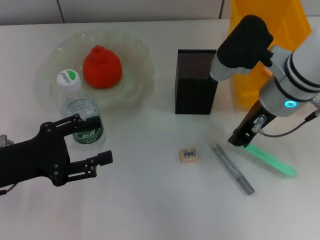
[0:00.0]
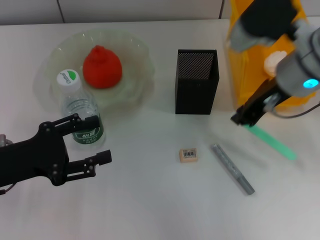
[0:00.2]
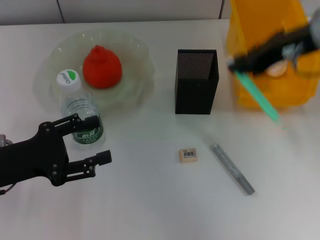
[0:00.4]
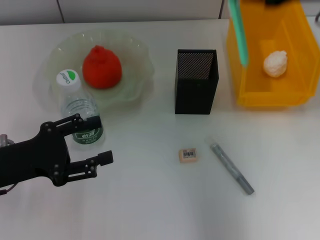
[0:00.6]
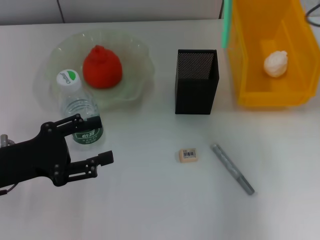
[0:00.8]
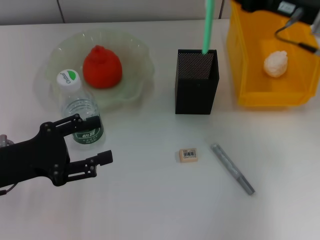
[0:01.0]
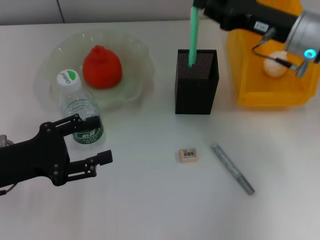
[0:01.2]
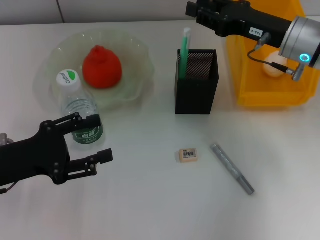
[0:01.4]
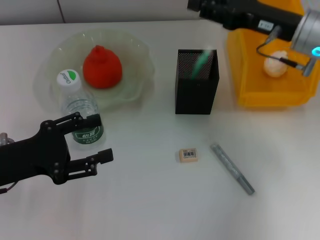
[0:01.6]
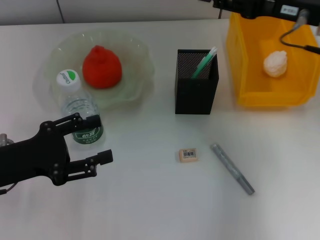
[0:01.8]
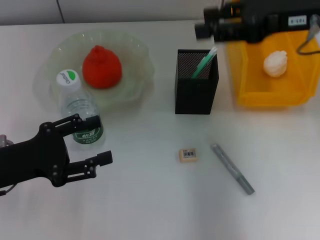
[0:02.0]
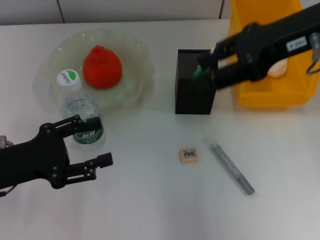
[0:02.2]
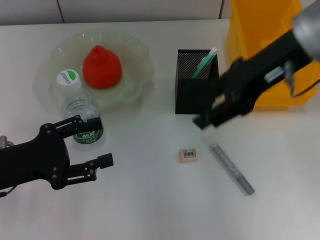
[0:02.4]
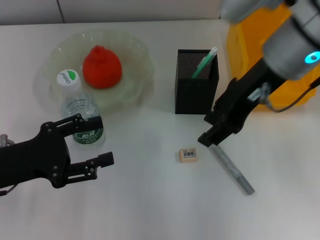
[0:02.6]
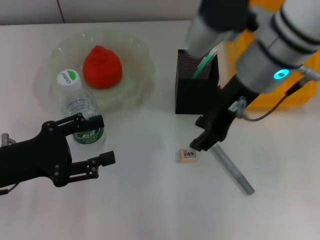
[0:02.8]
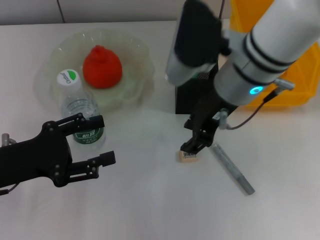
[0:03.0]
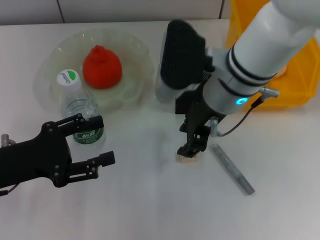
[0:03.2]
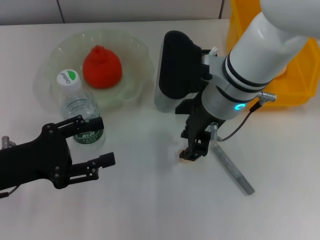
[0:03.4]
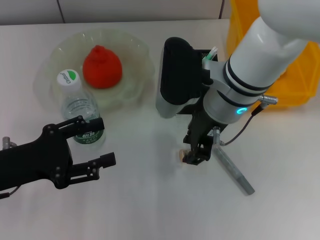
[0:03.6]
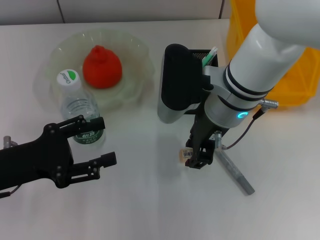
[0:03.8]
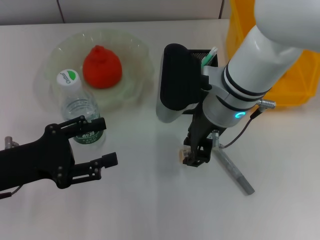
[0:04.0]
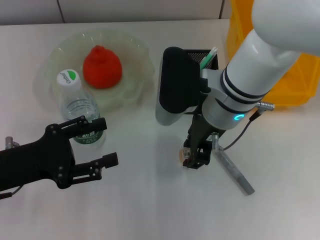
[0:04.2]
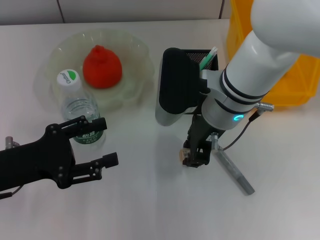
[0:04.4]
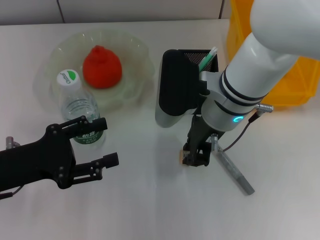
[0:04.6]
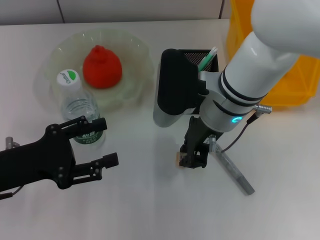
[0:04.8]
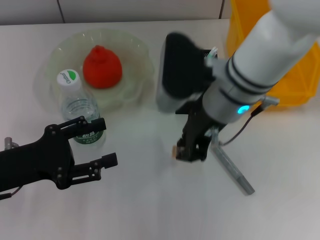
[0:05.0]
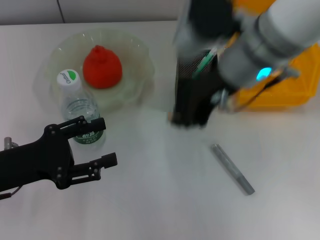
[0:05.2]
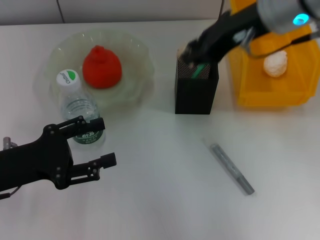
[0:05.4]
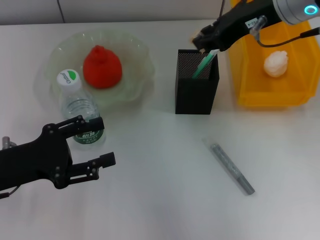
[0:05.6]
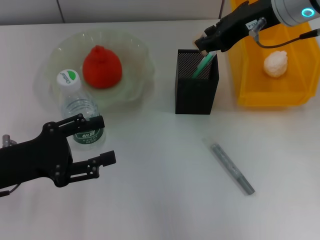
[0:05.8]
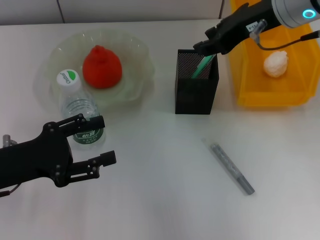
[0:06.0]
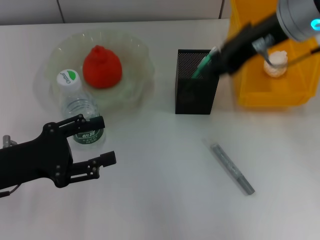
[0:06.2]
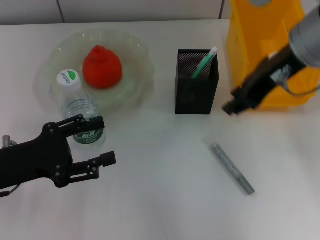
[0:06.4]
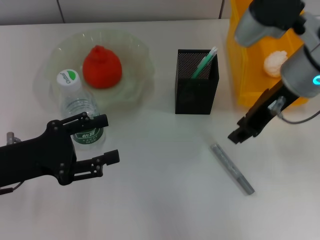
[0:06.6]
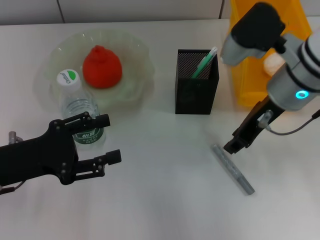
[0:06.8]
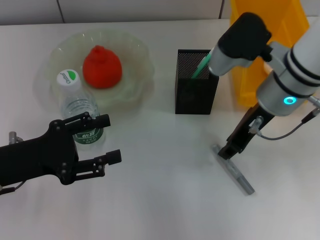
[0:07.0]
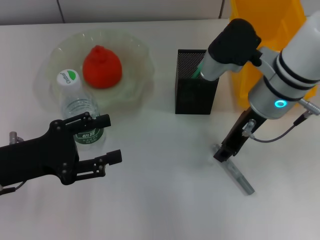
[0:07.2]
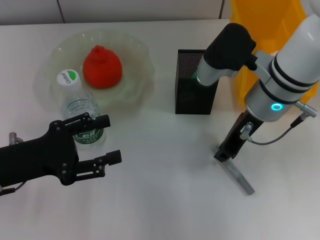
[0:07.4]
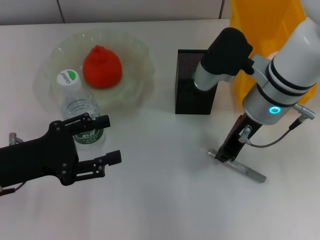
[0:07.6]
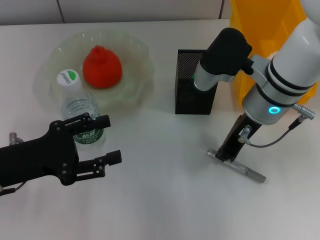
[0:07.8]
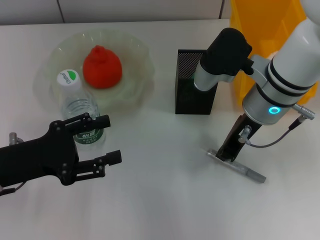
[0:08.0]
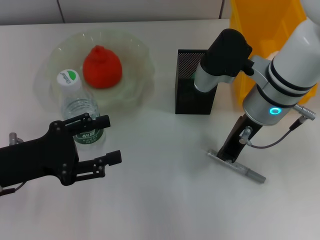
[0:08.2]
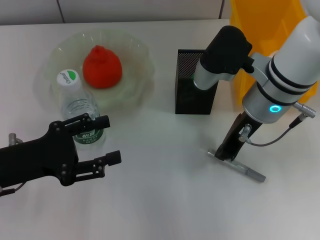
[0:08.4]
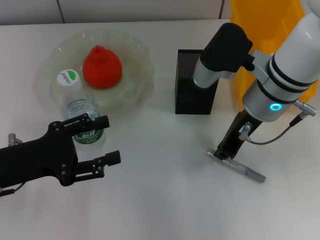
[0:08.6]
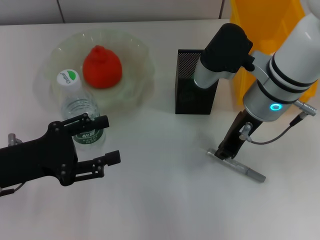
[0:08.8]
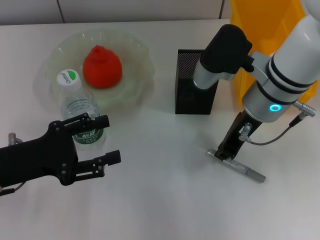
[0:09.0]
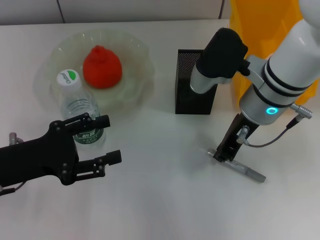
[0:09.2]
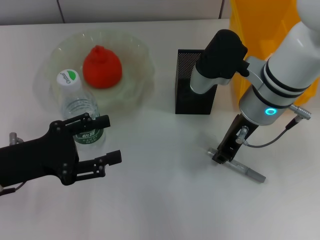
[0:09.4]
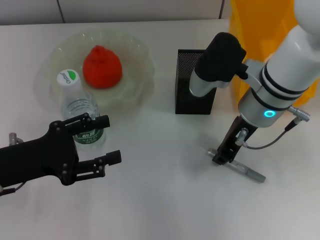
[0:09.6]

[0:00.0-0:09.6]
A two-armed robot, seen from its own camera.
Step, 0:00.0 to 0:01.6: Place the blue utility knife into the pen holder with the right hand.
Step, 0:01.8 to 0:04.6: Grab the eraser with the right hand.
Step, 0:04.8 to 0:06.0: Put the eraser into the pen holder with the right hand.
0:00.0 to 0:01.6: The right gripper goes approximately 5 cm to the right, and reaches about 10 cm upward, then returns.
0:01.6 to 0:03.2: The right gripper heads to the left, covering about 15 cm.
0:03.2 to 0:04.8: The grippers move only a little.
0:04.8 to 0:06.4: The right gripper shifts roughly 15 cm to the right and upward.
0:06.4 to 0:08.0: The right gripper travels downward by approximately 10 cm, and closes up.
0:08.0 to 0:09.6: Both grippers stay about where they are.

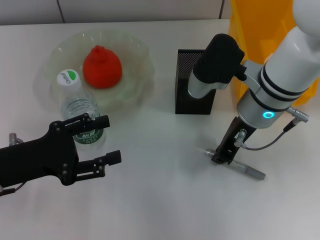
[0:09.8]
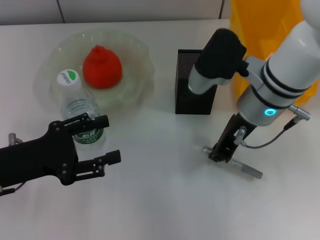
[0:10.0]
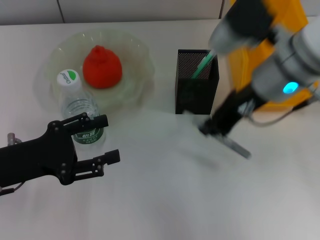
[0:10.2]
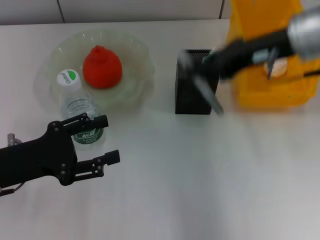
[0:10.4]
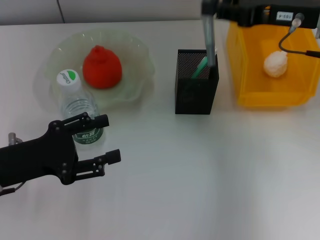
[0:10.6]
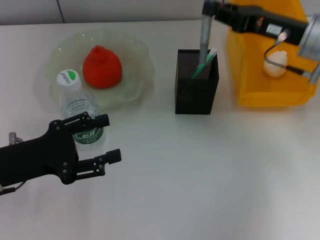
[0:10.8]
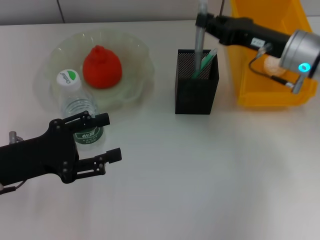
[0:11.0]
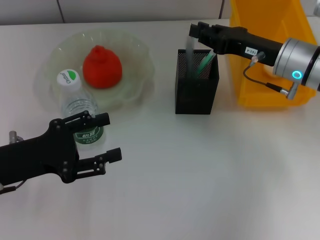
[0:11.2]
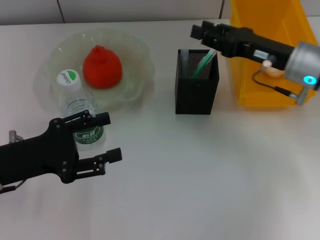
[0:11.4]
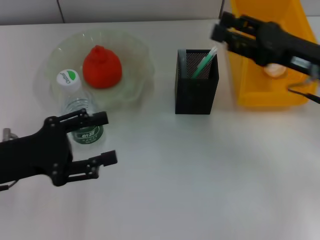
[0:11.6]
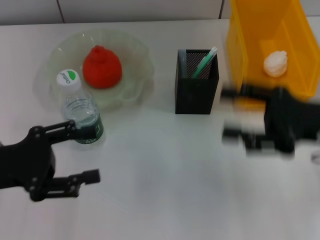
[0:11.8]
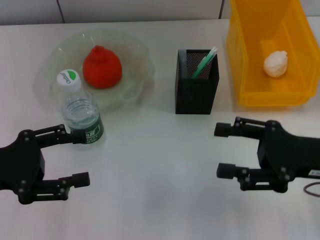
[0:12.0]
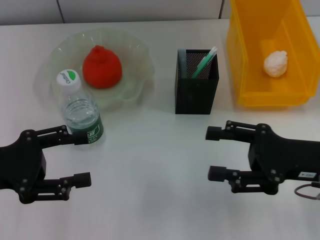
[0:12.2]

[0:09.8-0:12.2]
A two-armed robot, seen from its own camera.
Step, 0:10.0 to 0:11.4: Place the gray glue into the pen holder with the right hand.
0:09.8 to 0:11.0: The right gripper shifts approximately 10 cm to the right.
0:11.0 to 0:12.2: The right gripper shifts some 15 cm backward, and opens.

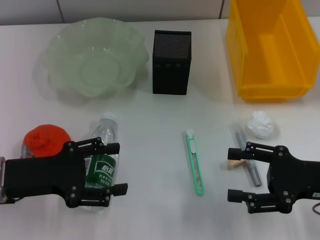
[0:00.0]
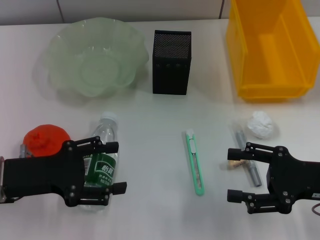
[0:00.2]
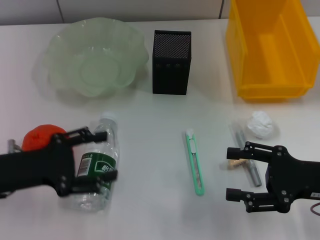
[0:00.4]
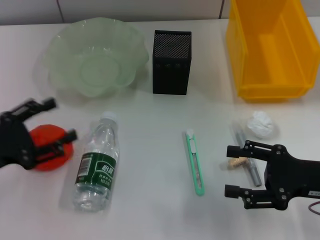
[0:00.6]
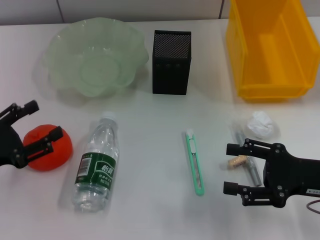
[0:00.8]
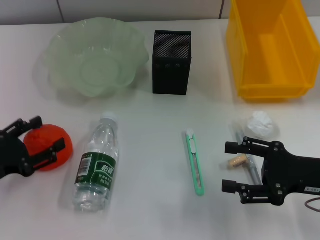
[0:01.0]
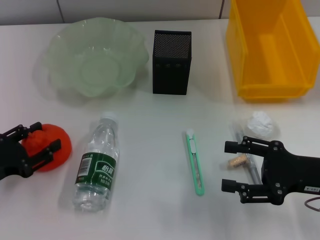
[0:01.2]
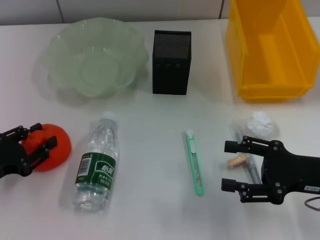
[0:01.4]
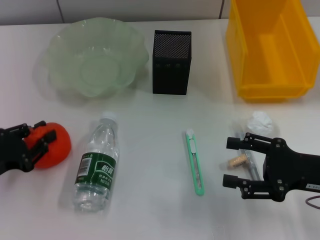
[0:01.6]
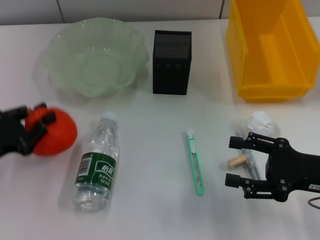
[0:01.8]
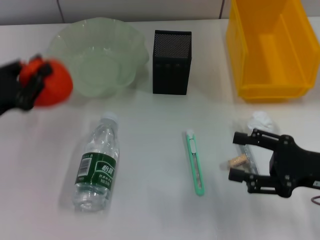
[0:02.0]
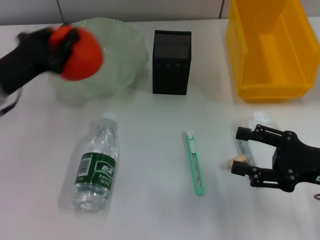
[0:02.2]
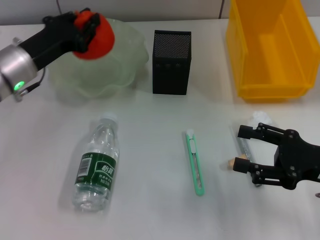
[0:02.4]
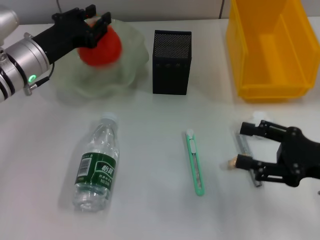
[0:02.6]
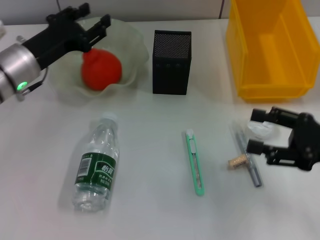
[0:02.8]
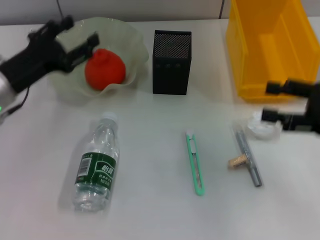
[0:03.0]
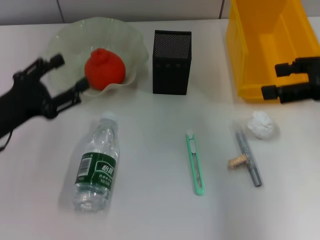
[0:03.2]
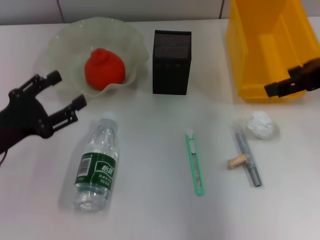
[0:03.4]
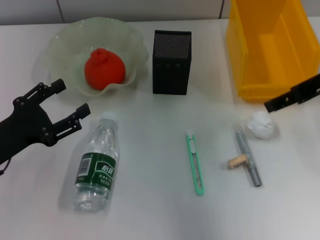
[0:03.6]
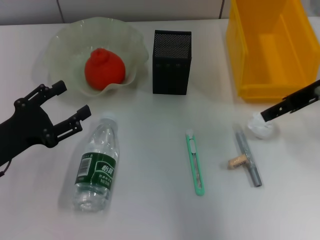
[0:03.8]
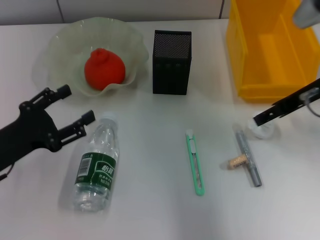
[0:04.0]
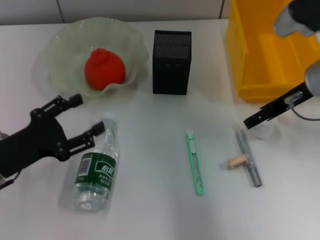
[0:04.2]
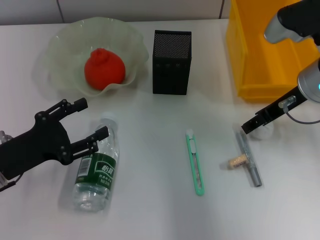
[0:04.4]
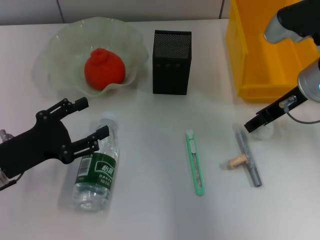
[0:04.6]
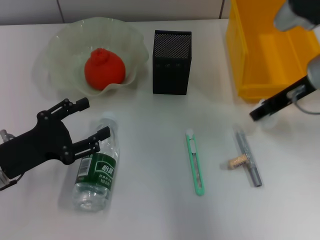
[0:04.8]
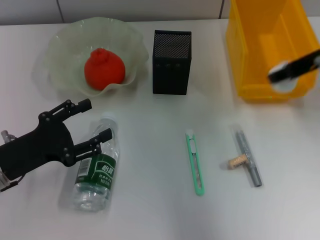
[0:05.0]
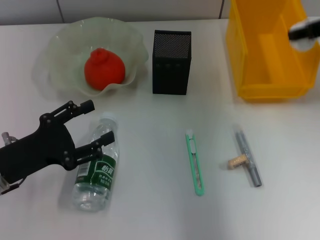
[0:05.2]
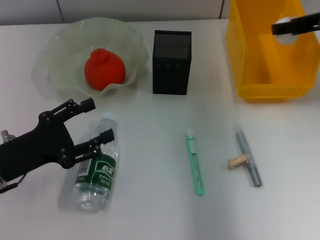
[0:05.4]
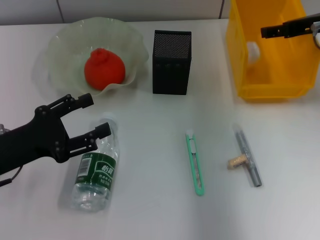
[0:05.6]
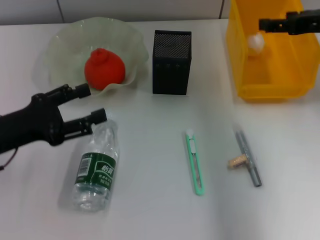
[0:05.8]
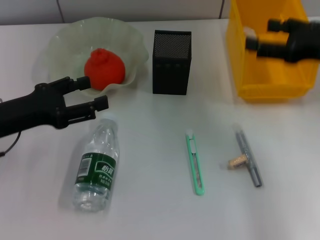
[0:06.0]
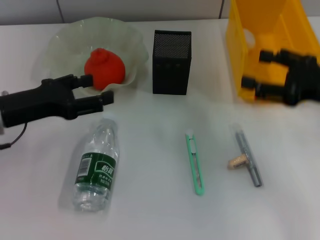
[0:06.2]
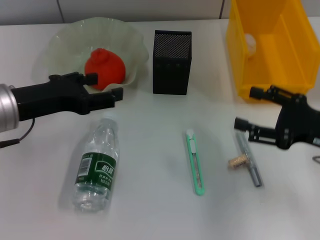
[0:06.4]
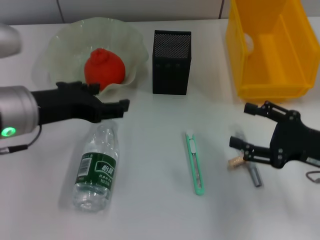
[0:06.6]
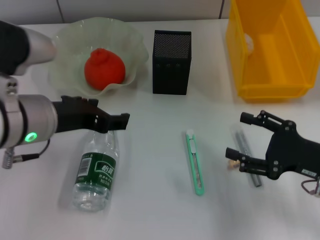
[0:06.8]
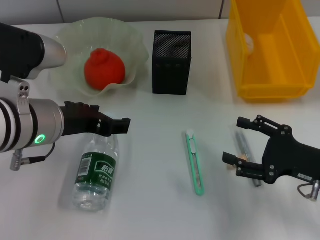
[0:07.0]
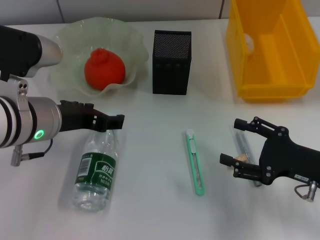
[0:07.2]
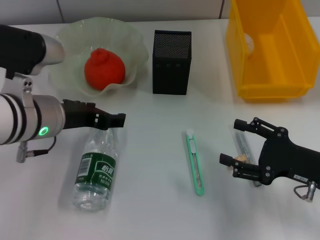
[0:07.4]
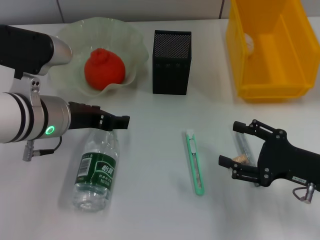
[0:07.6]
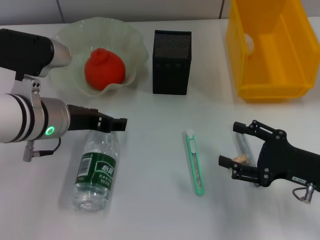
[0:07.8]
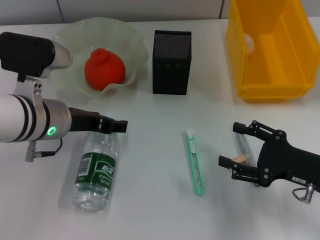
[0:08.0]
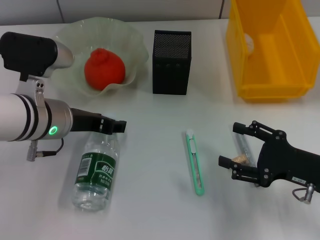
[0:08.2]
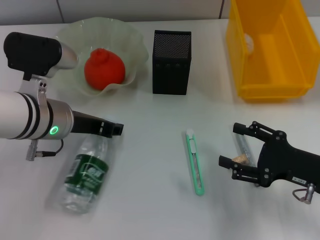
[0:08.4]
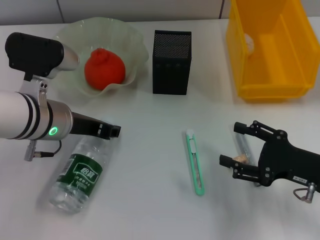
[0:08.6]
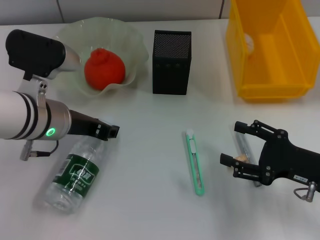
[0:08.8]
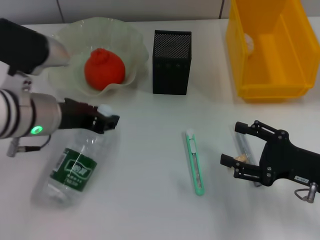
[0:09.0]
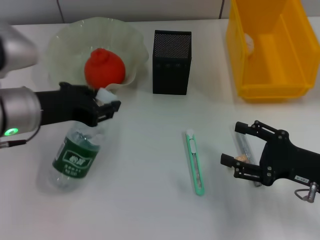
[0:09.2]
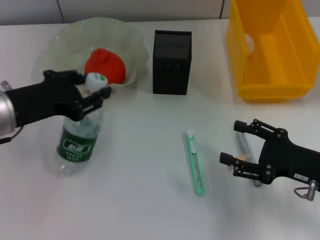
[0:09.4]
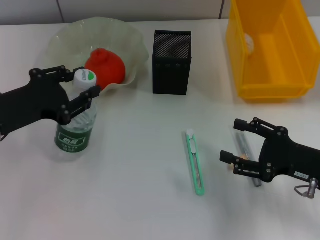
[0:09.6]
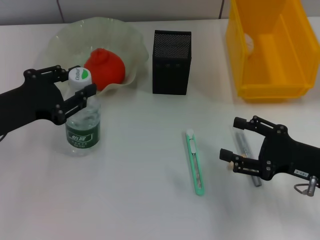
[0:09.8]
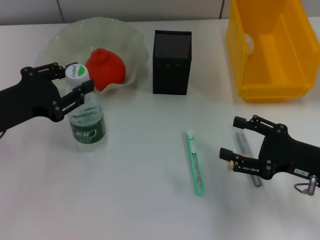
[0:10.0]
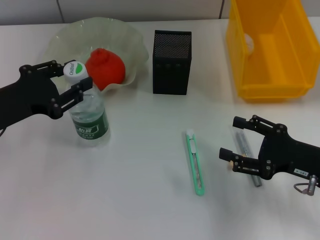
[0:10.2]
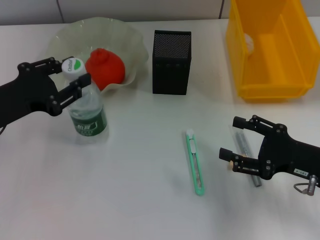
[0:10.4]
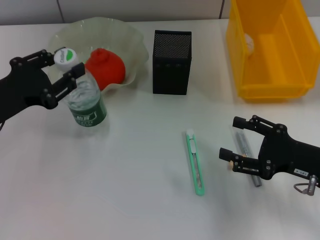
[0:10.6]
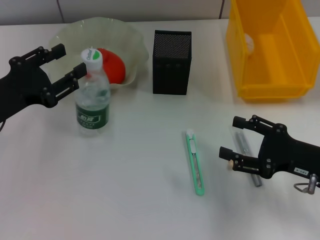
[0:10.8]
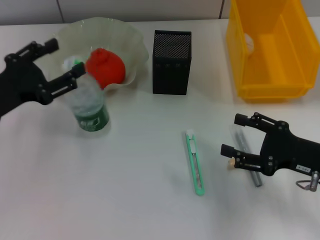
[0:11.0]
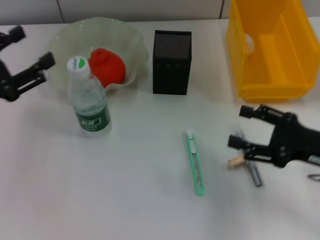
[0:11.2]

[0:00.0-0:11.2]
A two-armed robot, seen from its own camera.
Step, 0:00.0 to 0:01.4: Grab the orange with the left hand.
Step, 0:01.6 to 0:02.8: Place the orange into the fruit bowl with the left hand.
Step, 0:03.0 to 0:04.4: Grab the paper ball with the right hand.
Step, 0:04.6 to 0:05.6: Place the paper ball into the trash can with the right hand.
Step, 0:06.0 to 0:08.6: Grab the water bottle with the left hand.
0:00.0 to 0:01.6: The left gripper moves to the left, roughly 5 cm, and closes.
0:01.6 to 0:03.2: The right gripper is displaced upward and forward by some 15 cm. Meanwhile the left gripper travels forward and back again, approximately 15 cm each way, and opens up.
0:03.2 to 0:04.8: The right gripper goes roughly 10 cm to the left and forward, and closes.
0:04.8 to 0:06.4: The right gripper heads backward, downward and to the right, covering approximately 15 cm, and opens up; the left gripper is displaced upward by some 10 cm.
0:06.4 to 0:08.0: The left gripper heads to the right, covering roughly 5 cm; the right gripper changes place by some 5 cm.
0:08.0 to 0:09.6: The left gripper shifts roughly 10 cm to the left, and closes up.
0:09.6 to 0:11.2: The left gripper travels to the left by about 5 cm, and opens.
